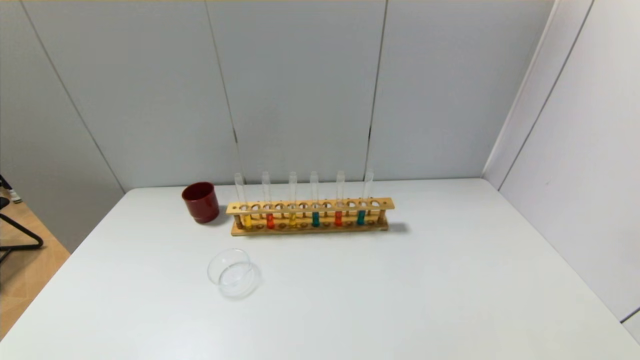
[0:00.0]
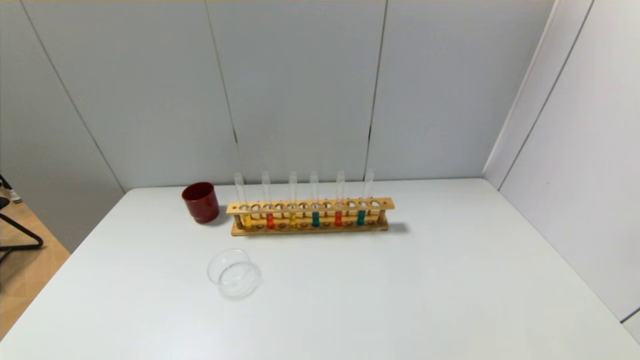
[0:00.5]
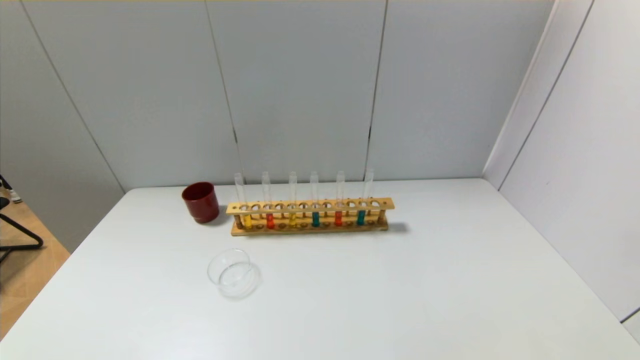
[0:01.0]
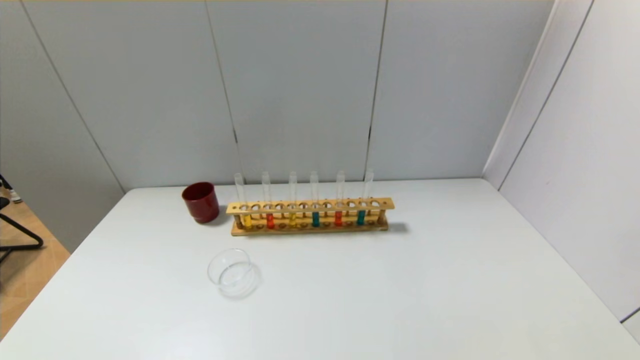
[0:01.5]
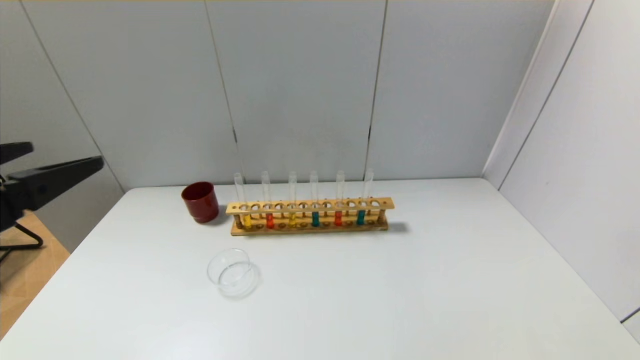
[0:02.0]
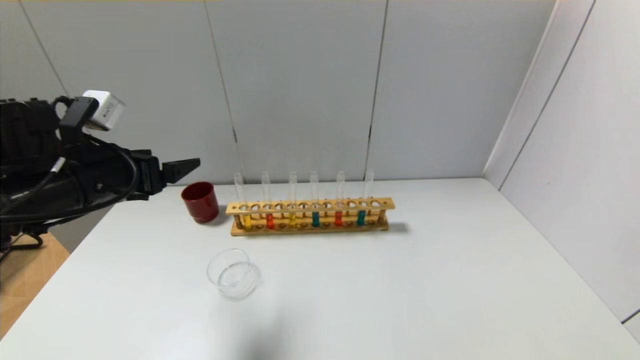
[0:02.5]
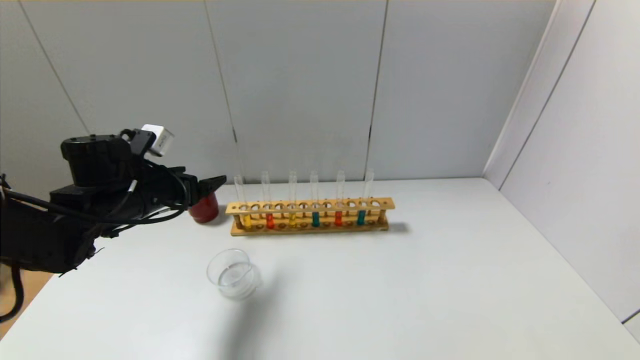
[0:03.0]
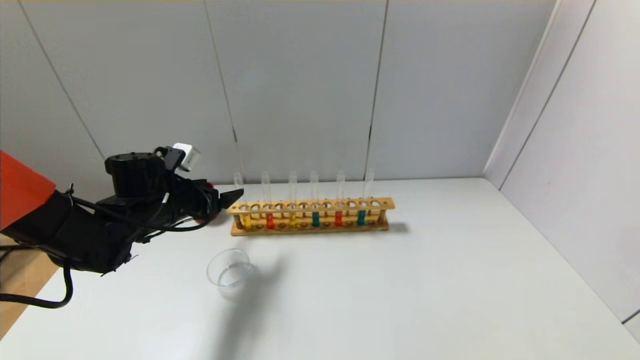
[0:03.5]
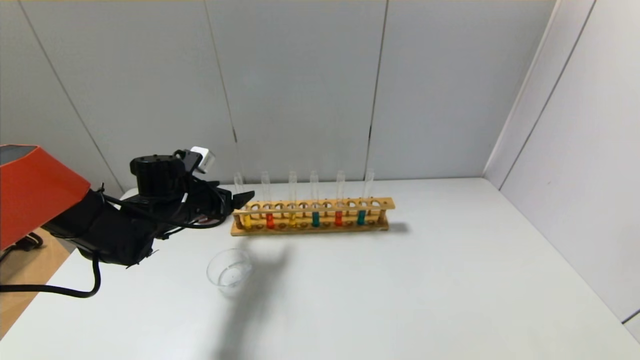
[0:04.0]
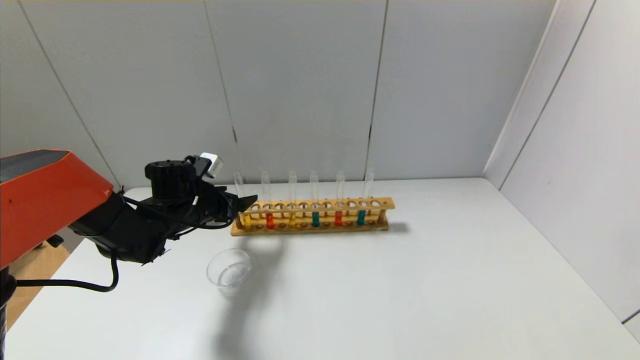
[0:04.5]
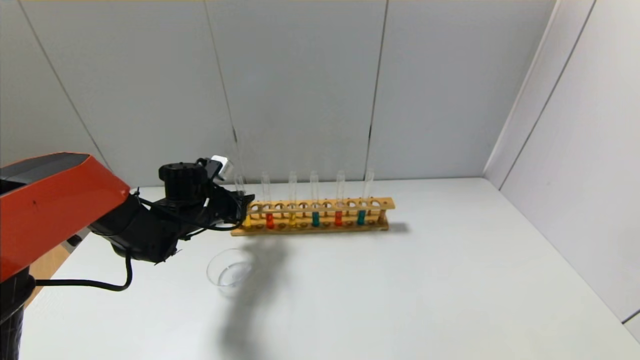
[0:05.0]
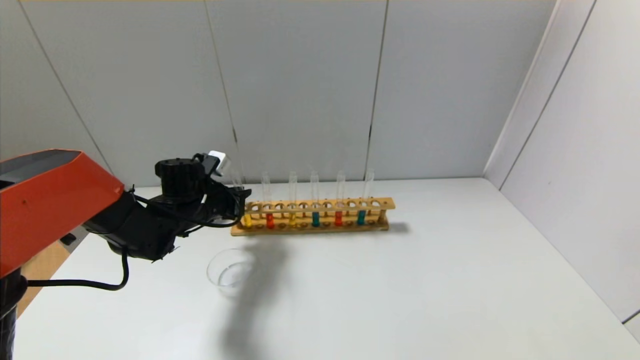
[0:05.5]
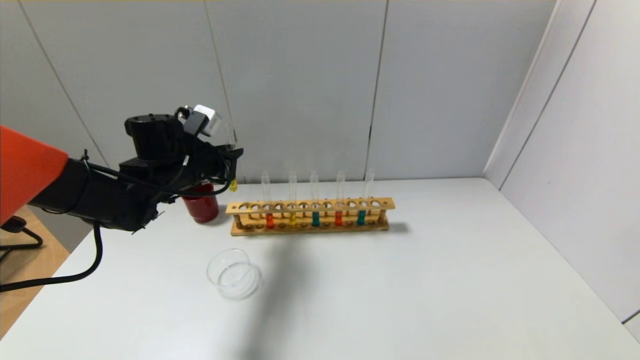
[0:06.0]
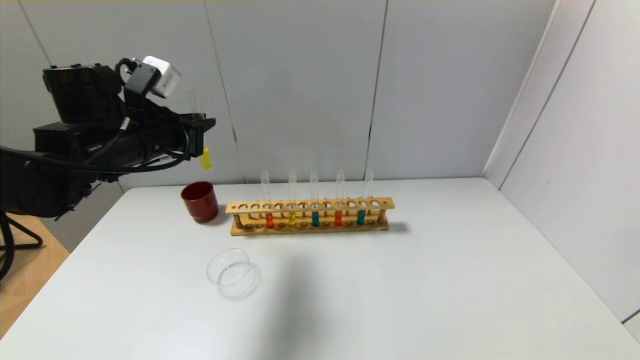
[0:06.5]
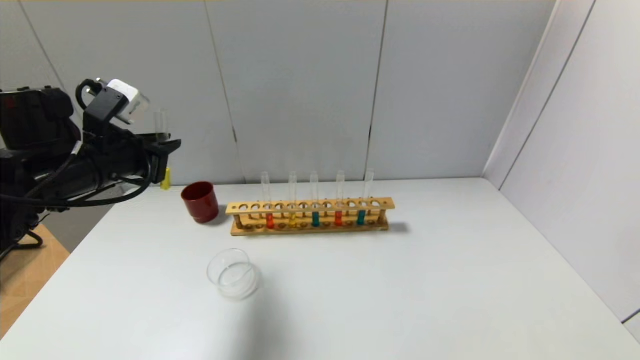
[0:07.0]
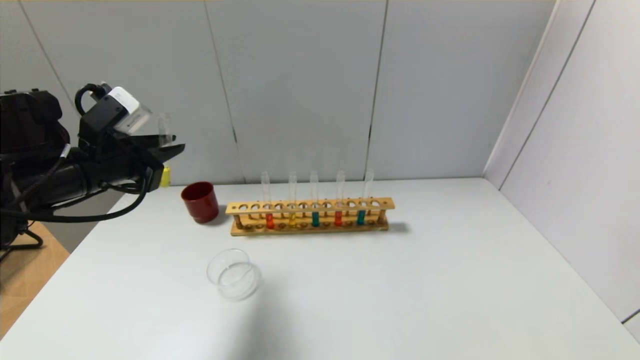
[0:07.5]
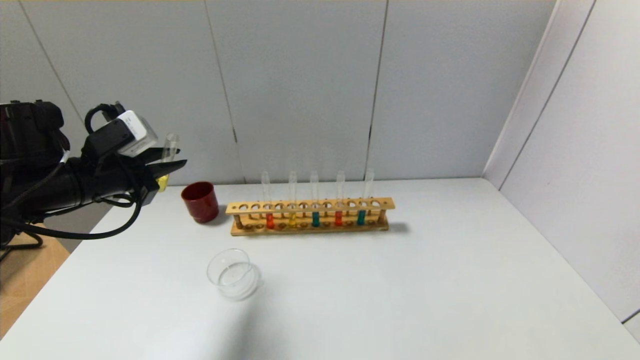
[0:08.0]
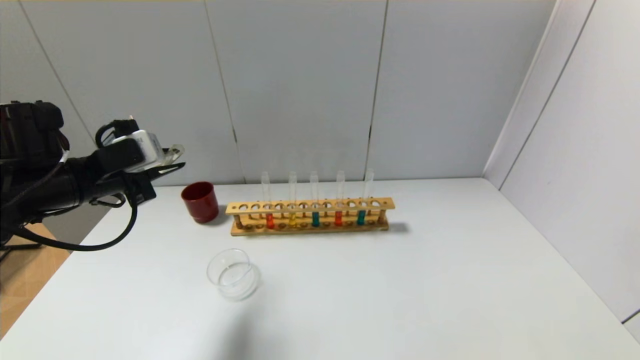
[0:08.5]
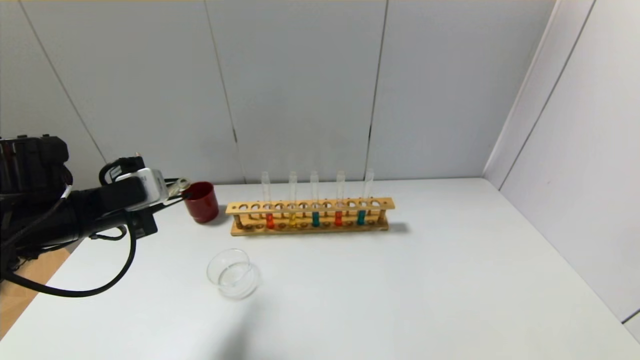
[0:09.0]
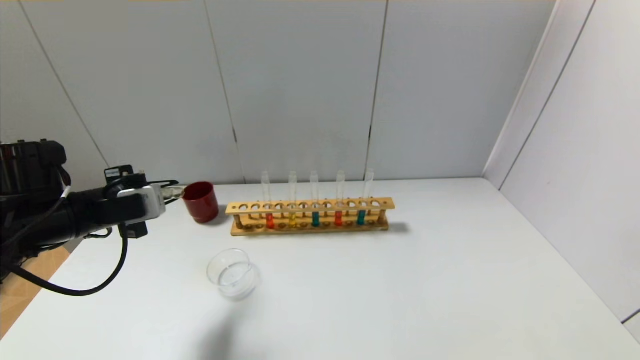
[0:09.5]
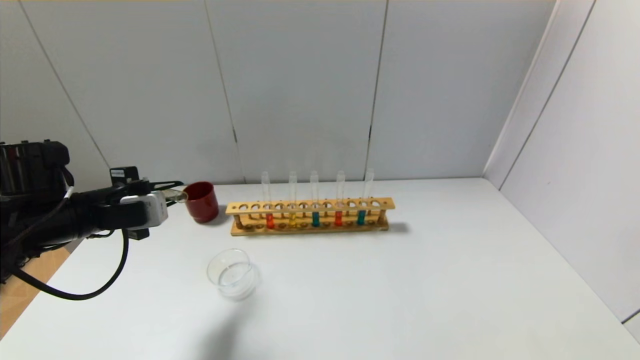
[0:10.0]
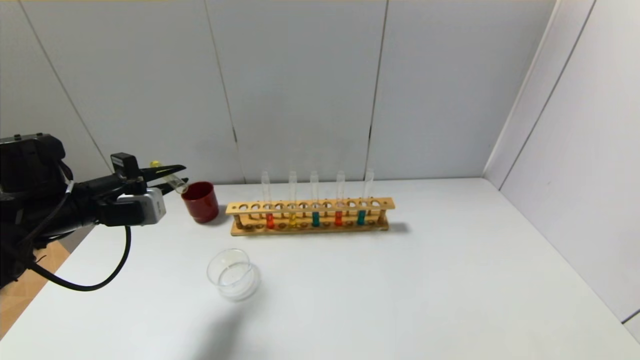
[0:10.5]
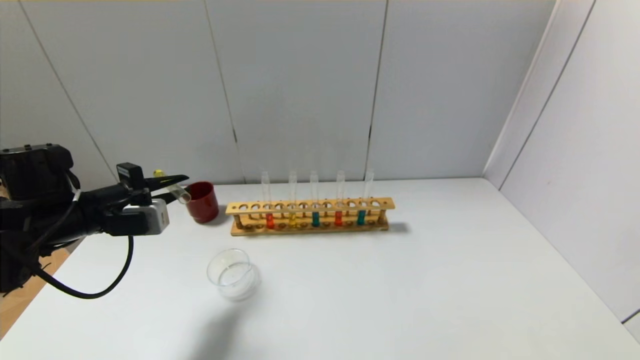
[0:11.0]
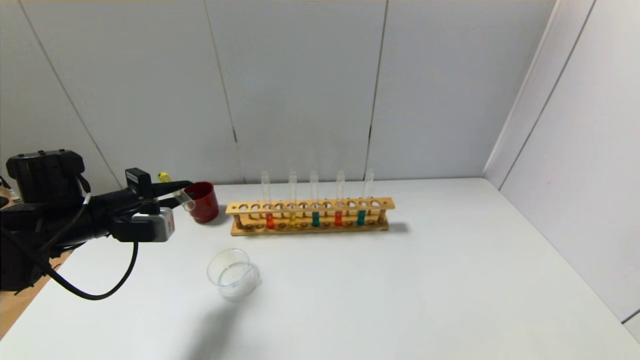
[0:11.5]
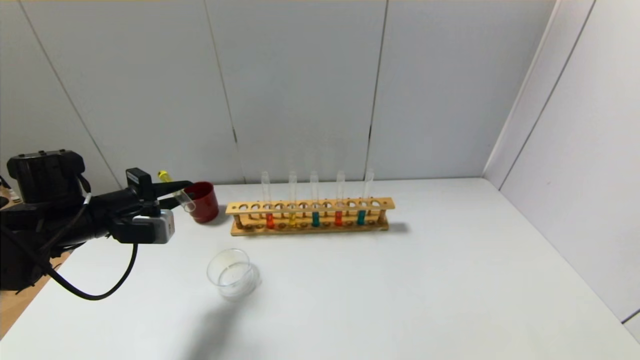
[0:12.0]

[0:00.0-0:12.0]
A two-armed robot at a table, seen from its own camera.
Step, 0:00.0 to 0:05.0: Grasp the yellow reagent with the left gripper.
0:00.0 to 0:02.0: The left gripper heads upward and forward, covering about 25 cm.
0:02.0 to 0:04.0: The left gripper is displaced forward and downward by roughly 30 cm.
0:04.0 to 0:06.0: The left gripper goes approximately 5 cm upward, and closes.
0:06.0 to 0:08.0: The left gripper goes about 15 cm backward and to the left.
0:10.0 to 0:12.0: The grippers stay close to where they were, moving slightly.

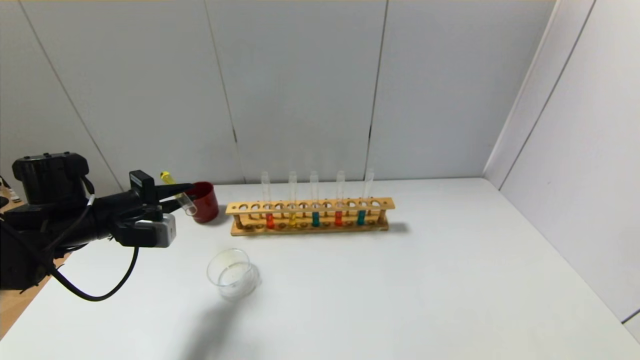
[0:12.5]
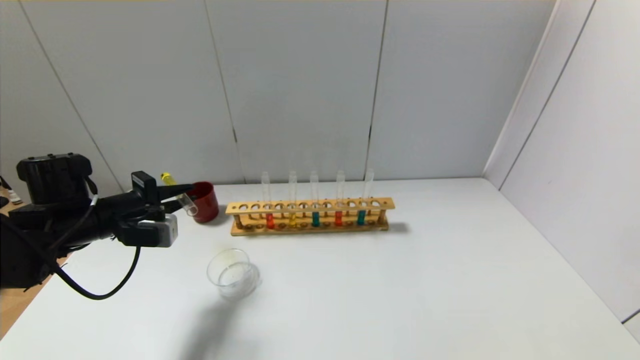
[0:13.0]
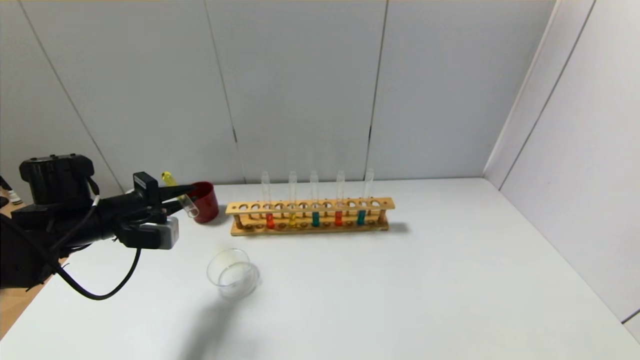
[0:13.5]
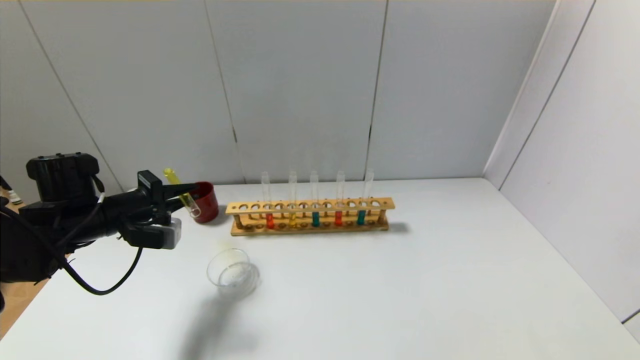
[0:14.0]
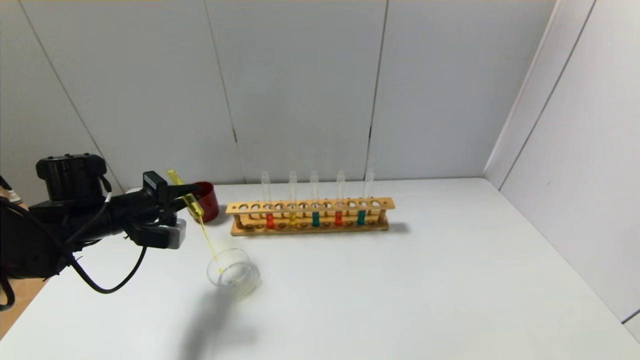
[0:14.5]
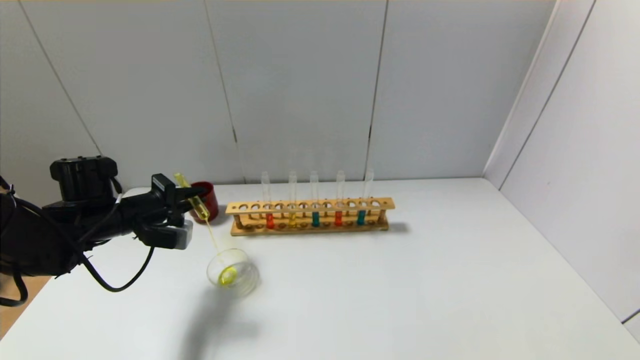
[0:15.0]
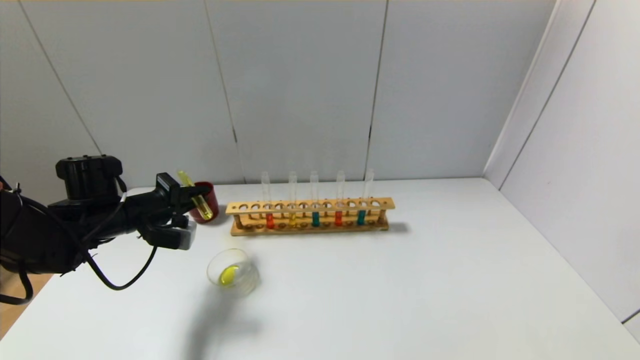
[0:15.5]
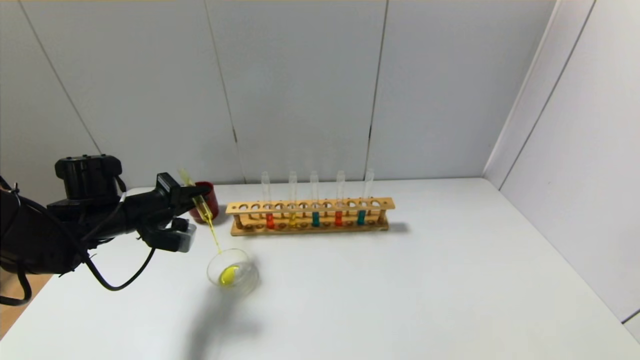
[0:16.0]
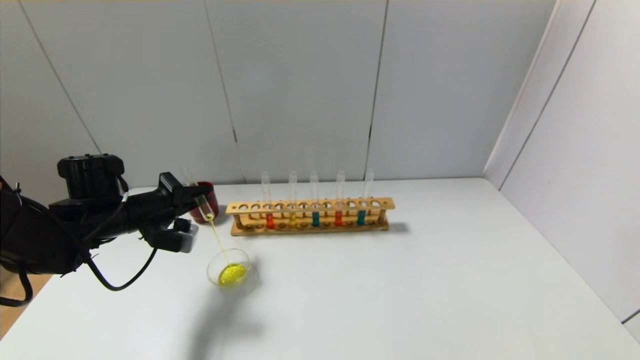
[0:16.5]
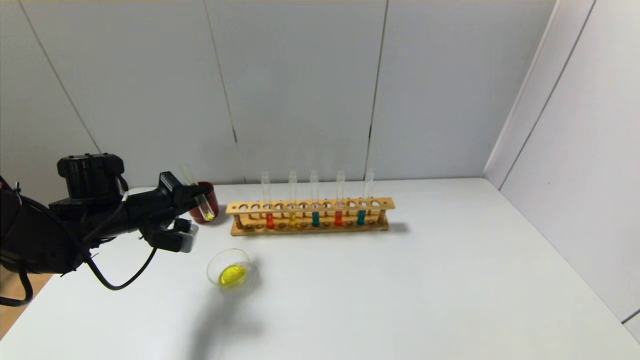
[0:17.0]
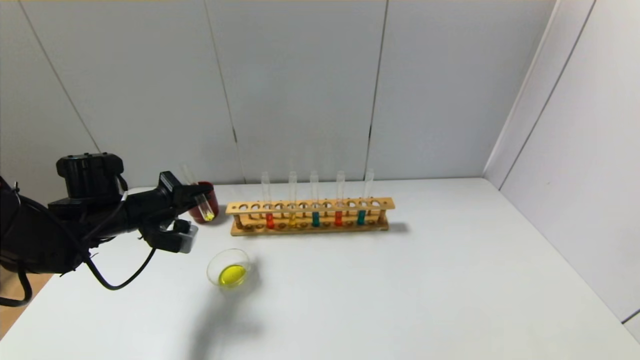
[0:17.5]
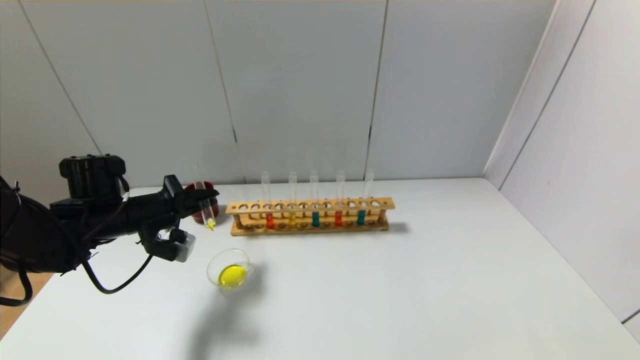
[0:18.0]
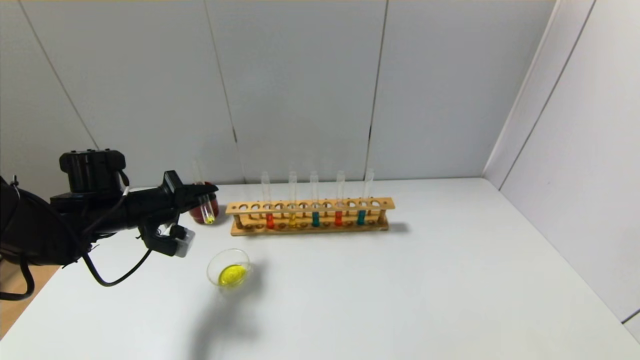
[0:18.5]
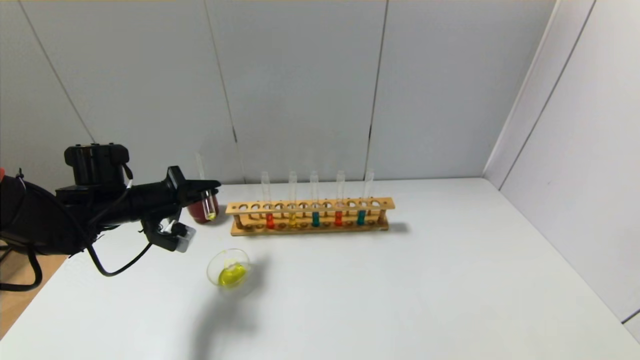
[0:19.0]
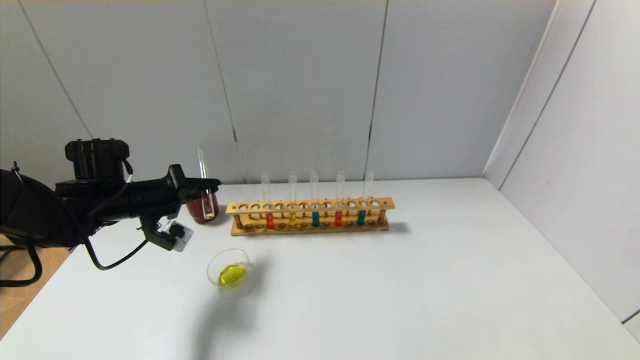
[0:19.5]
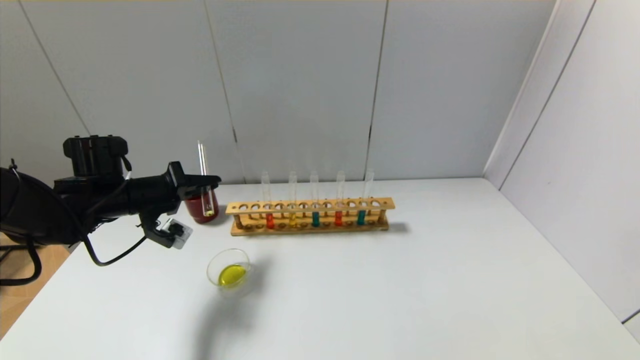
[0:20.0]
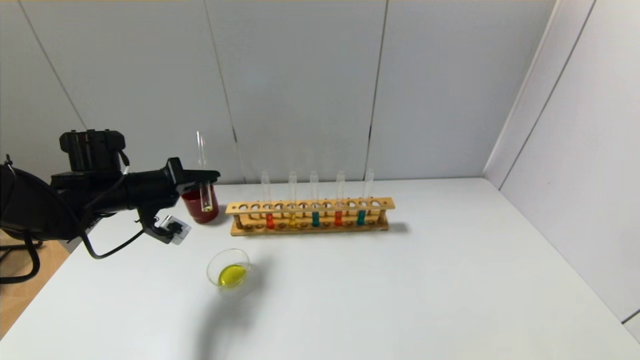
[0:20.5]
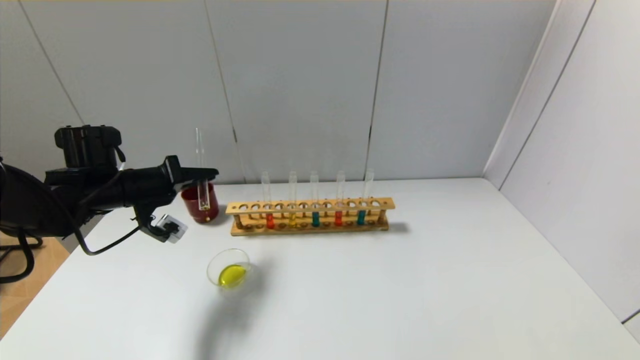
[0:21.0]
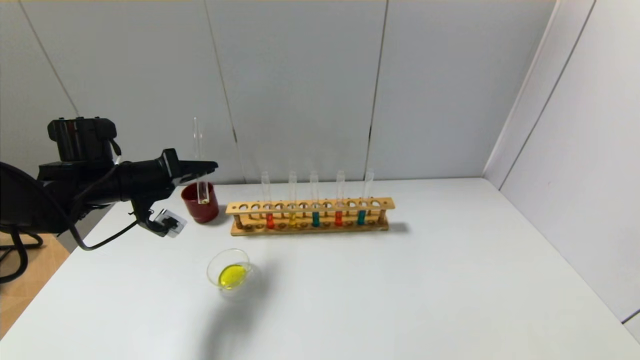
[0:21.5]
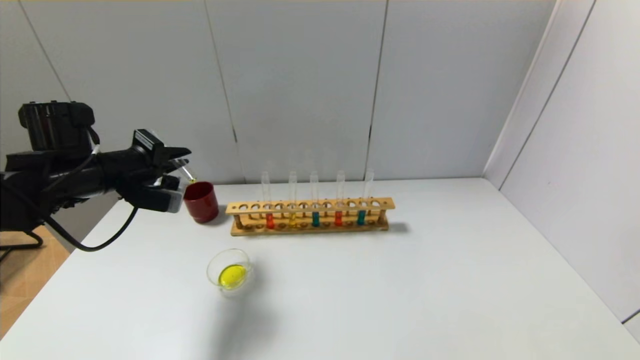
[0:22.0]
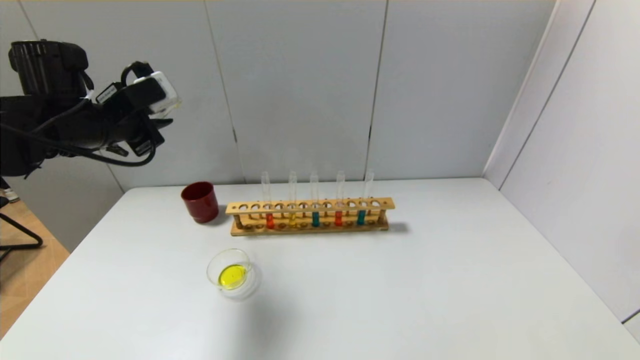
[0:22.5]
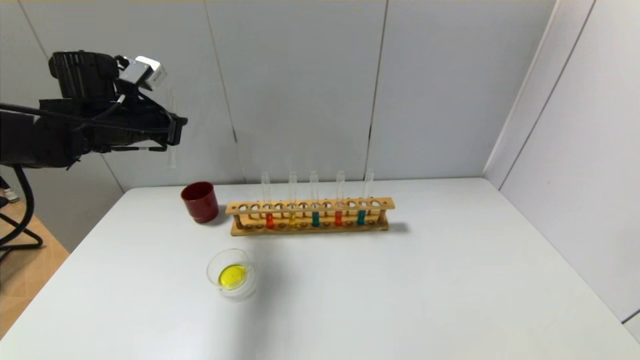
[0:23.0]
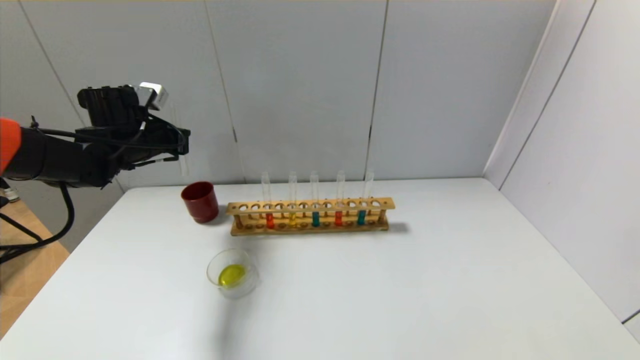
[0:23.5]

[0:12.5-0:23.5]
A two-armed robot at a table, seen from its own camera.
Step, 0:12.5 to 0:21.5: Pour the yellow reagent into the graduated cylinder with the left gripper.
0:12.5 to 0:16.0: The grippers make only small movements.
0:16.0 to 0:18.0: The grippers stay close to where they were, moving slightly.
0:18.0 to 0:20.0: There are only small adjustments of the grippers.
0:20.0 to 0:21.5: The grippers make only small movements.
0:21.5 to 0:23.5: The left gripper is displaced forward by approximately 10 cm.